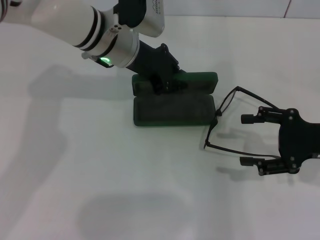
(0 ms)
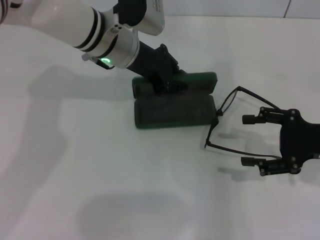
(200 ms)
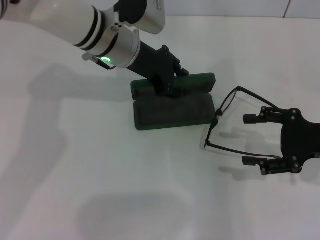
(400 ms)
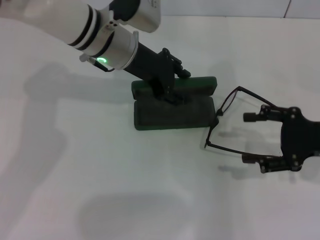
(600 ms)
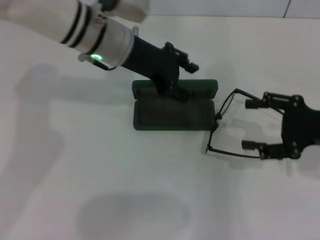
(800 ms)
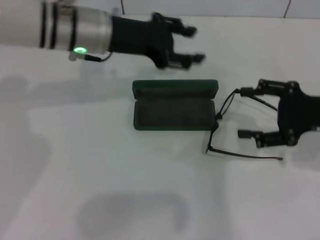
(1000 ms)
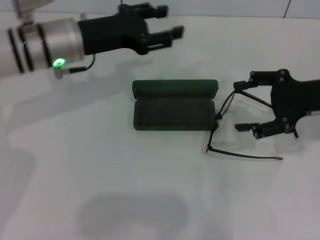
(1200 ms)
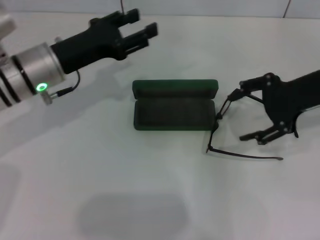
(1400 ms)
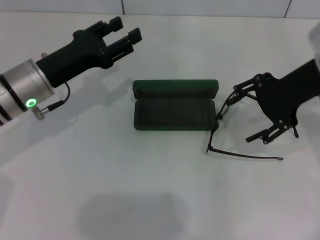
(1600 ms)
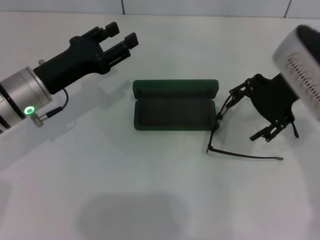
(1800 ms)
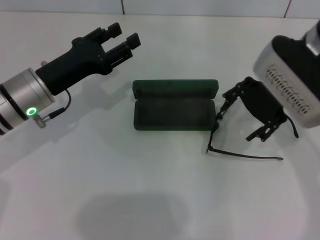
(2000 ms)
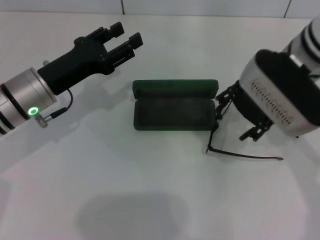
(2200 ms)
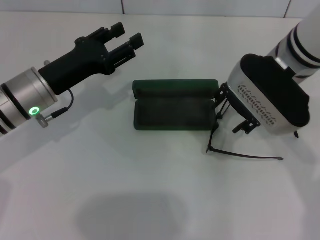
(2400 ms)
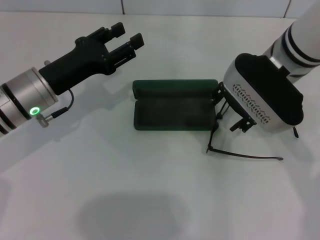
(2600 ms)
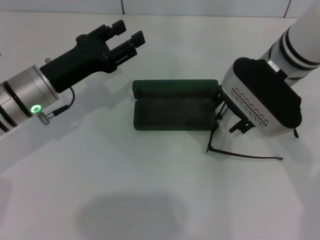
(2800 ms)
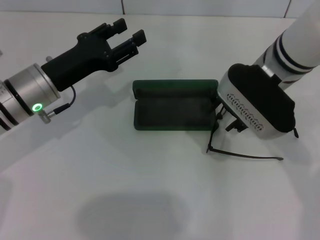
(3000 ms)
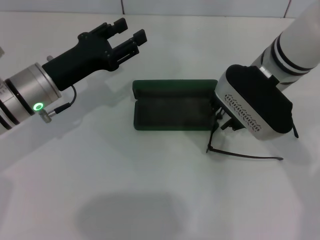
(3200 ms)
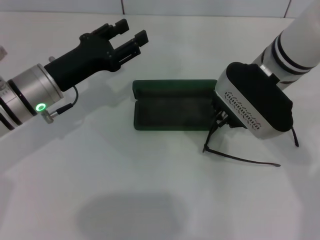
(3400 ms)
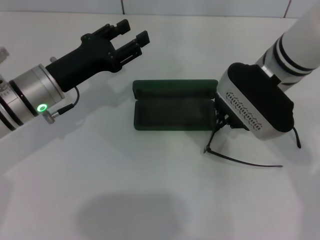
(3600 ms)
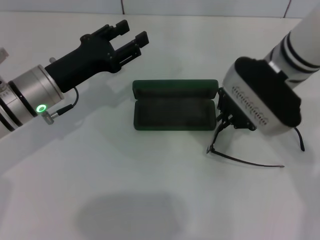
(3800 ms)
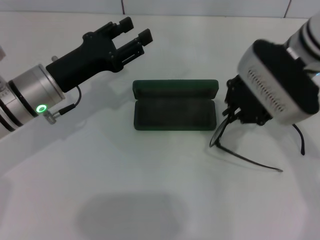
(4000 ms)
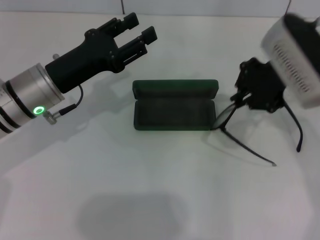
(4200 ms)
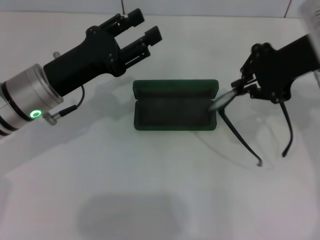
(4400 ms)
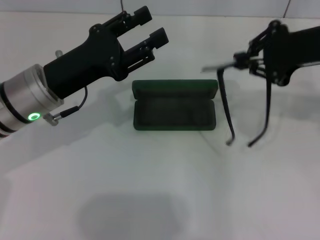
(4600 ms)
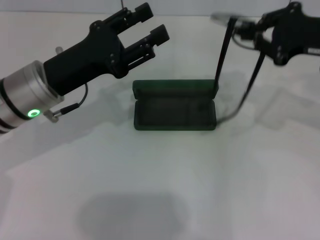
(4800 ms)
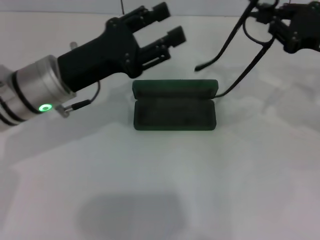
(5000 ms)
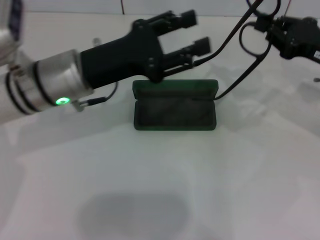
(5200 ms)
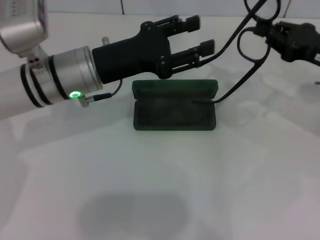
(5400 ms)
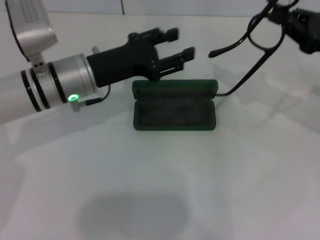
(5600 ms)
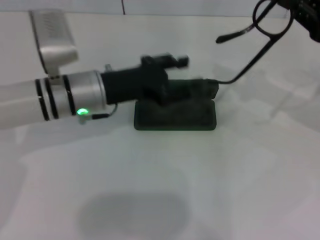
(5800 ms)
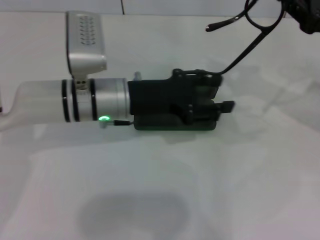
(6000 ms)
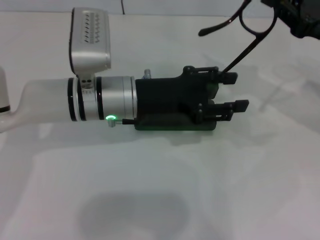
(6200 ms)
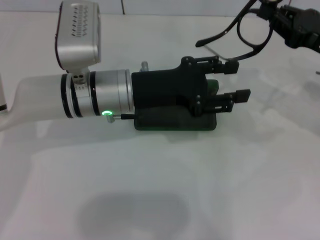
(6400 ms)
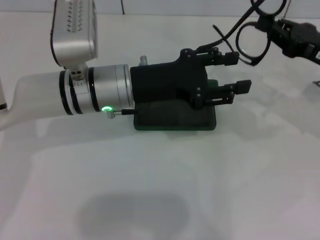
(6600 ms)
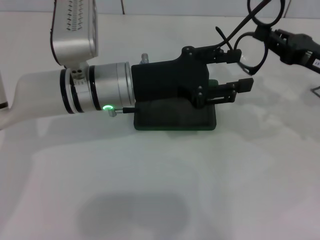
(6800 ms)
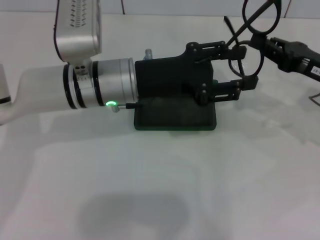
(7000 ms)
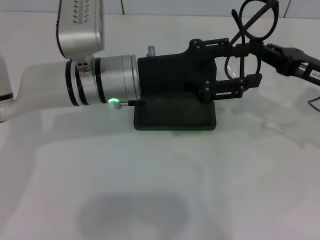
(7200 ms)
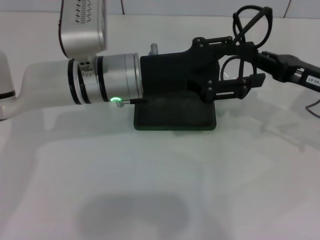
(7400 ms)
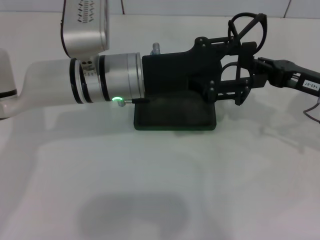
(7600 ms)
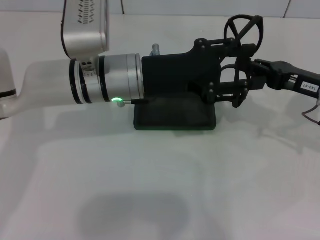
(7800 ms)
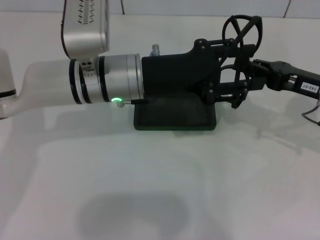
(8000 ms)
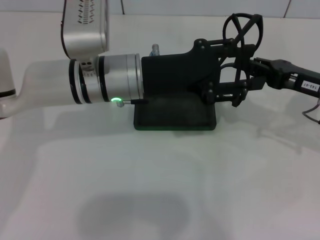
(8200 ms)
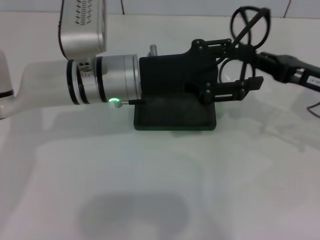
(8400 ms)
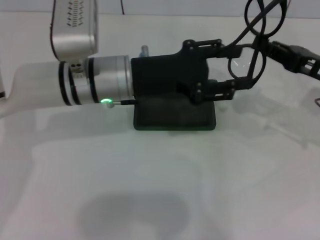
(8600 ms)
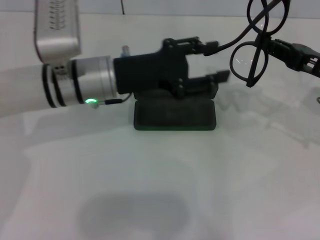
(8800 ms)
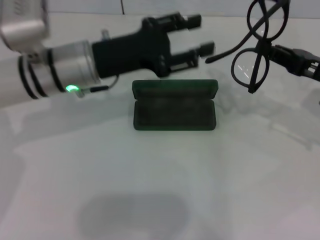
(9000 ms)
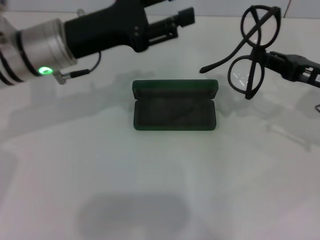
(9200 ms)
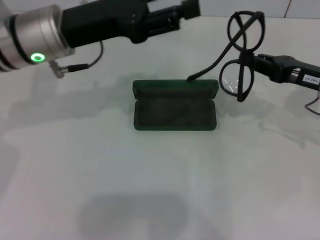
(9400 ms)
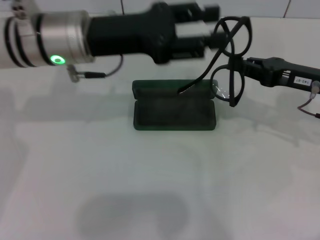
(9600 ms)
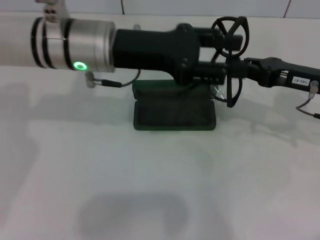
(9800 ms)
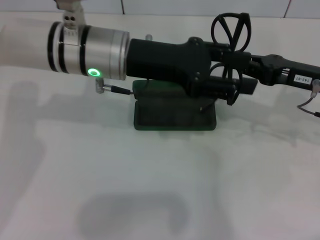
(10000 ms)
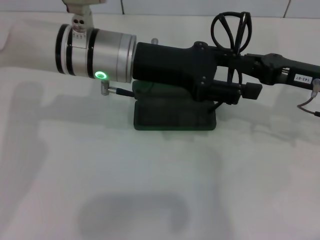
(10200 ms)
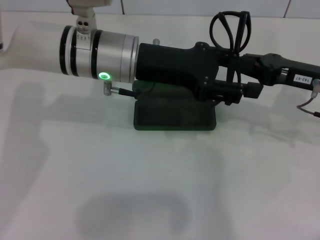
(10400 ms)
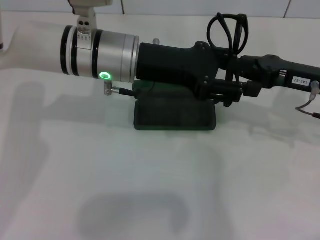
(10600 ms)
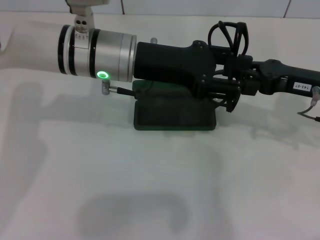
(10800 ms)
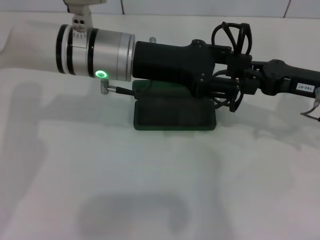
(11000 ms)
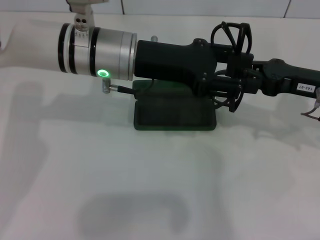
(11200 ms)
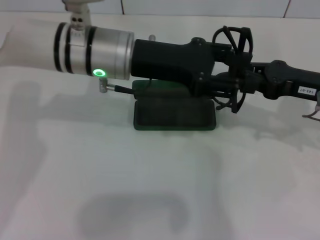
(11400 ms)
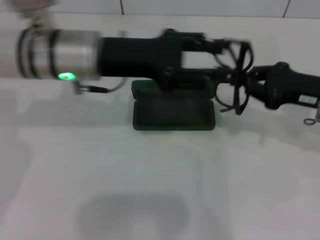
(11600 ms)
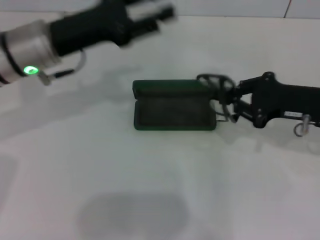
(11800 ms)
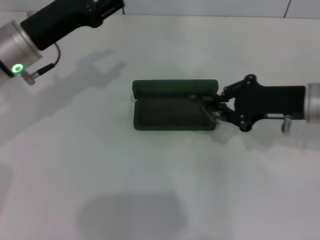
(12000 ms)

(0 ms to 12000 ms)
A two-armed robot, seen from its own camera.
Step, 400 ms - 3400 ms: Grab the eyeglass frame with your right hand.
Step, 3600 ms - 10600 ms: Fold the frame with your left hand.
0 ms - 1600 ms: The left gripper travels to the left and backward by about 15 cm, and opens up; the right gripper is displaced upward, to the left and forward by about 15 cm.
1600 ms - 3000 ms: The right gripper shifts approximately 10 cm to the left.
3000 ms - 4400 ms: The right gripper travels to the right and upward by roughly 10 cm, and closes its fingers.
4400 ms - 6000 ms: The left gripper is displaced to the right by some 10 cm. The right gripper moves to the right and downward, roughly 10 cm.
6000 ms - 7600 ms: The right gripper goes approximately 5 cm downward.
7600 ms - 9000 ms: The left gripper moves to the left, about 5 cm.
9000 ms - 10400 ms: The left gripper moves to the right, some 5 cm.
10400 ms - 12000 ms: The left gripper goes some 15 cm to the left.

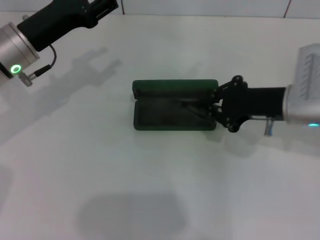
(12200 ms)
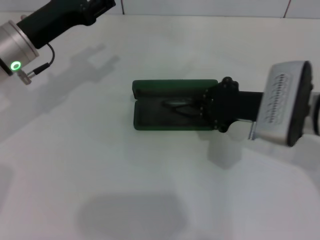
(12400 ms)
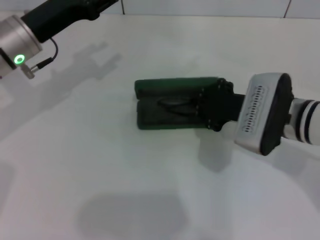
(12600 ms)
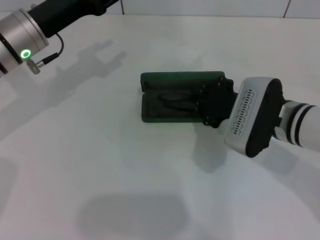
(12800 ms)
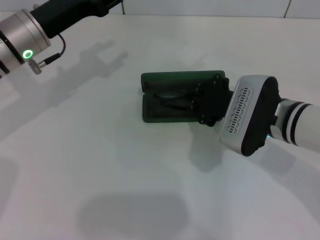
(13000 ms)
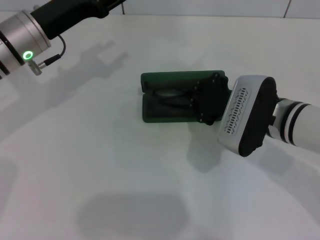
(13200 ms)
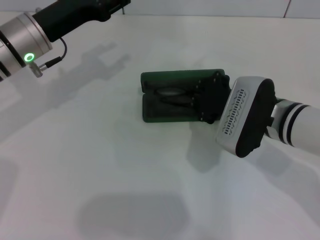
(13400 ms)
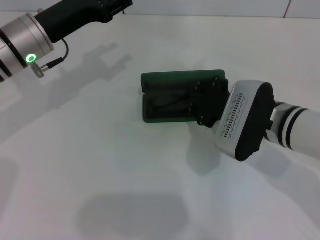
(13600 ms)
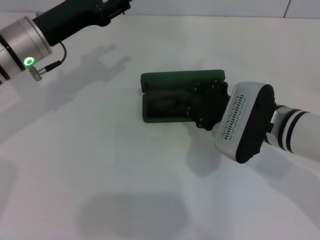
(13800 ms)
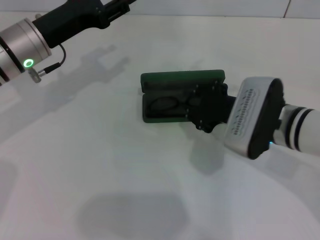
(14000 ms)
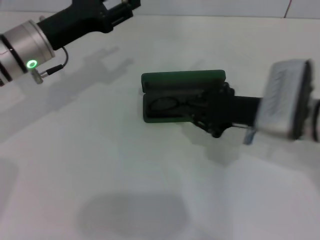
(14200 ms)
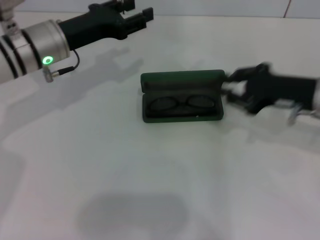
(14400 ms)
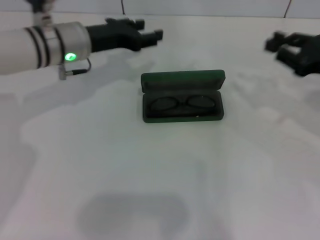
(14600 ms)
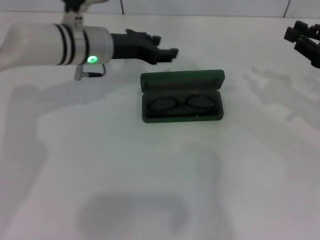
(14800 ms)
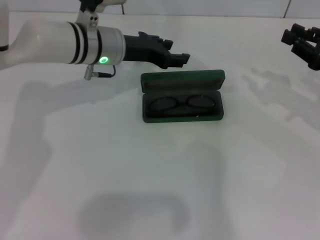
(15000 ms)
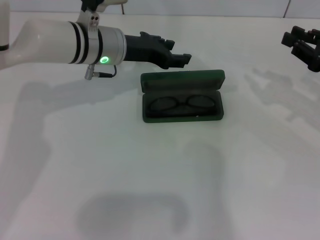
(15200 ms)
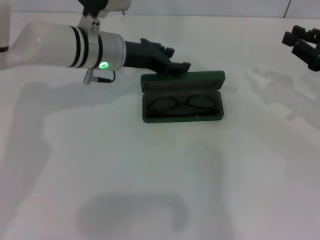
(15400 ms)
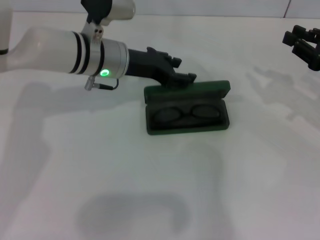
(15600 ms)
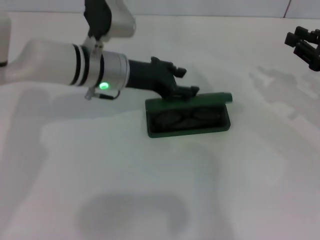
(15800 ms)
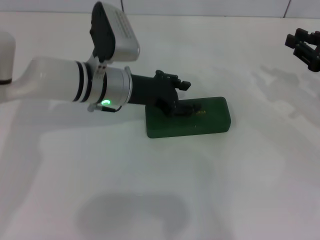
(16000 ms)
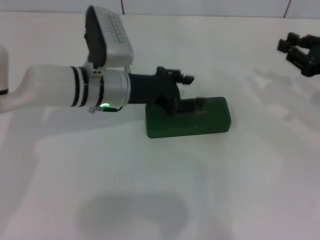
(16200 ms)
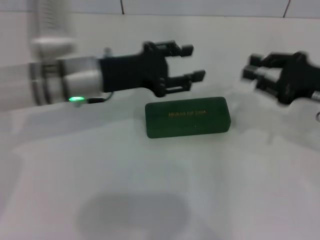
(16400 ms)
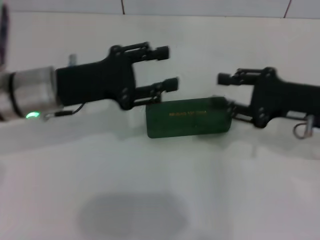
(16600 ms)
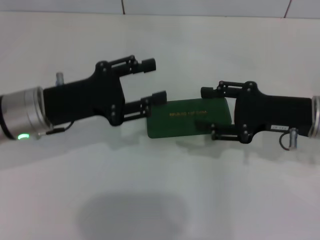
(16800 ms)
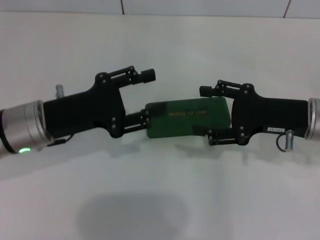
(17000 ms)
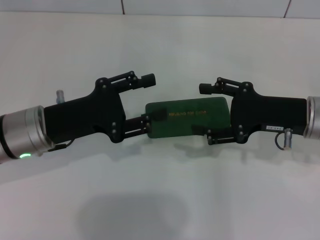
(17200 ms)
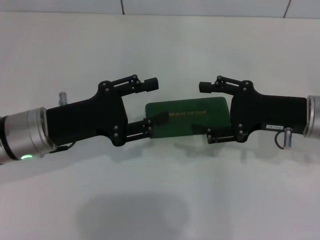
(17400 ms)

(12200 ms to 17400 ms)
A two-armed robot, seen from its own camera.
Step, 14000 ms - 15800 ms: Close the glasses case with your left hand.
12200 ms - 14000 ms: The right gripper goes roughly 5 cm to the left.
14000 ms - 15600 ms: The left gripper moves to the right, roughly 10 cm. The right gripper heads to the right, covering approximately 20 cm.
15600 ms - 17400 ms: The right gripper travels to the left by some 10 cm, and opens up; the left gripper is displaced backward and to the left by some 15 cm.

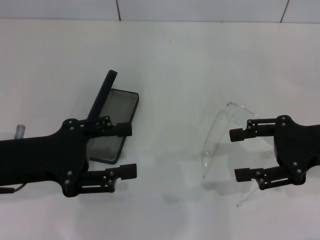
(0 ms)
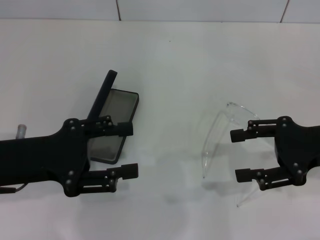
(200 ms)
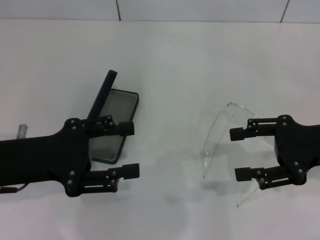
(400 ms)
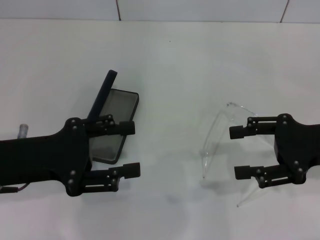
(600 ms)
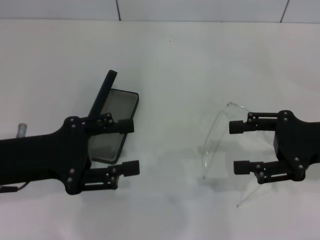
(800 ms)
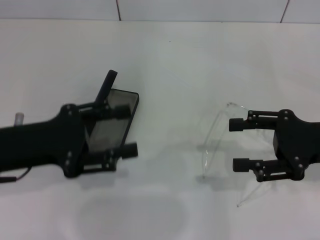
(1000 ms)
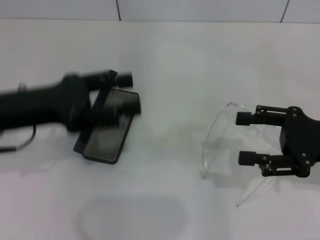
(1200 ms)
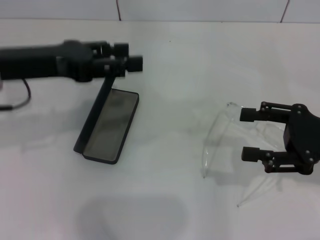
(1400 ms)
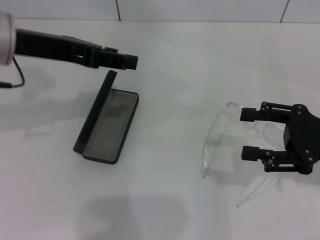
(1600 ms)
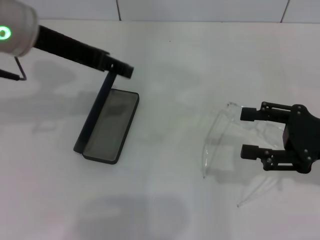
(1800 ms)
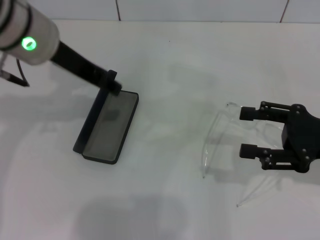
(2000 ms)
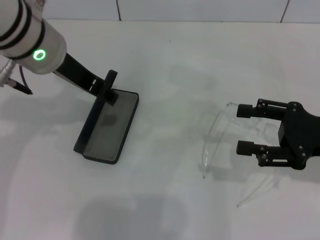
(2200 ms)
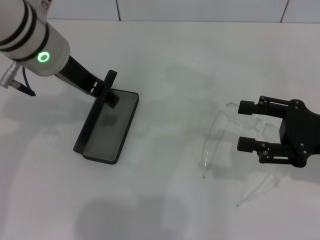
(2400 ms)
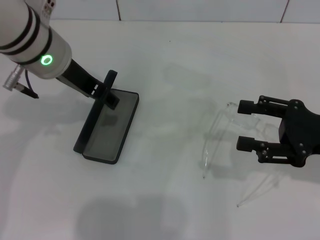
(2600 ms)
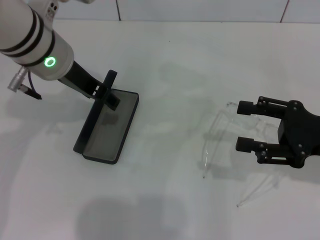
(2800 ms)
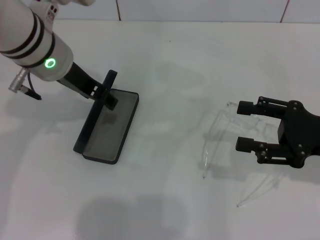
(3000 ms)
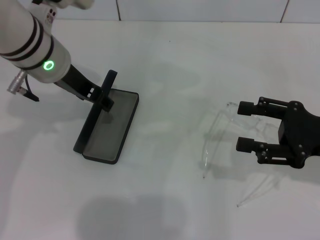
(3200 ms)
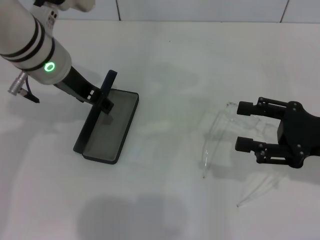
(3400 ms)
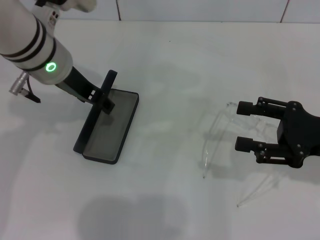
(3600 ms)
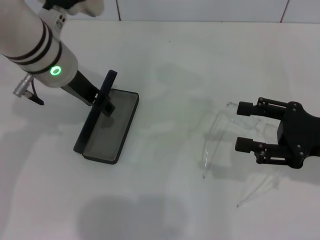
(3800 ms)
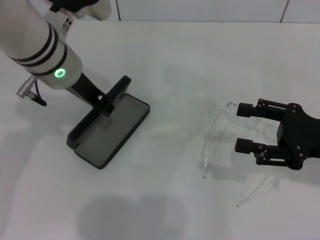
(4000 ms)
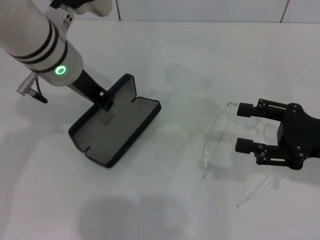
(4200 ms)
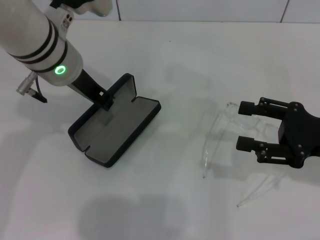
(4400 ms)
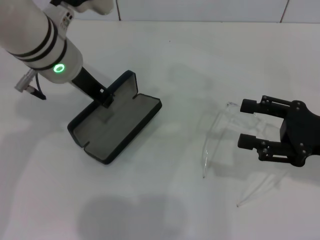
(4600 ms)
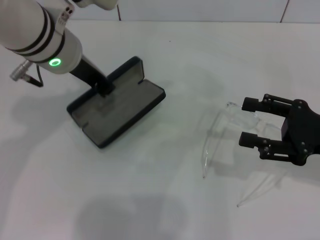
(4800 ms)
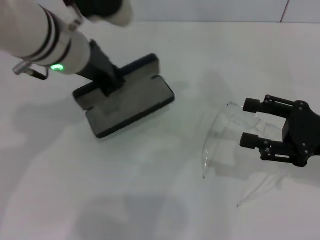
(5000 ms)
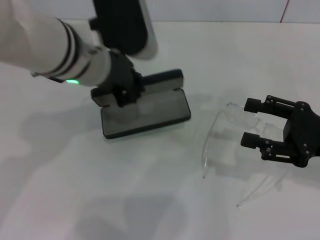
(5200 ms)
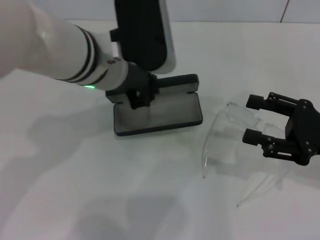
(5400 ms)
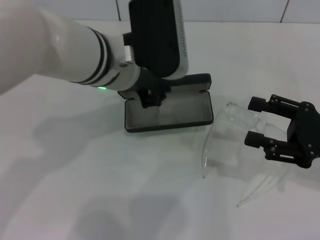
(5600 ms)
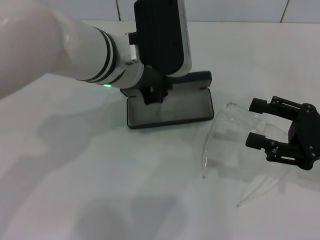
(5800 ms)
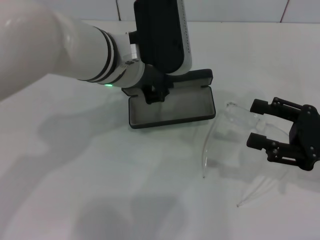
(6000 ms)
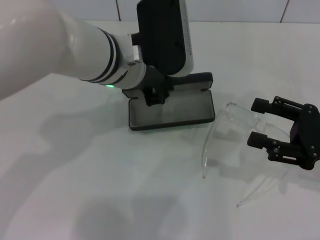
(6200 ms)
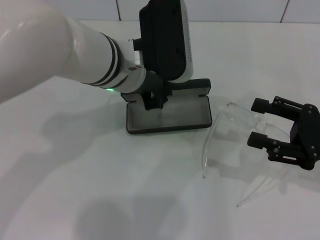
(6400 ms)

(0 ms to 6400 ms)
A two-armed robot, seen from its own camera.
Step, 0 ms - 4000 ms: Grab the glasses case with your left hand.
0 ms - 1600 ms: The left gripper shifts roughly 15 cm upward and forward.
1600 ms - 3200 ms: The left gripper travels to the right by approximately 5 cm.
3200 ms - 4800 ms: The left gripper closes up.
4800 ms - 6400 ms: The left gripper goes about 5 cm to the right.
